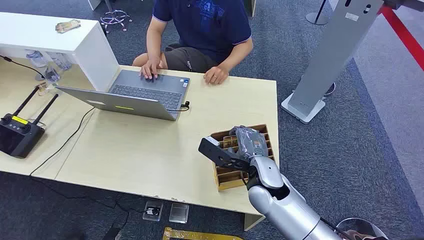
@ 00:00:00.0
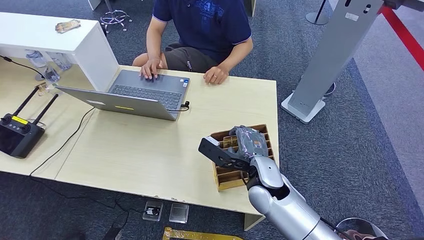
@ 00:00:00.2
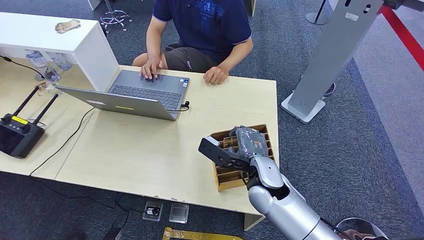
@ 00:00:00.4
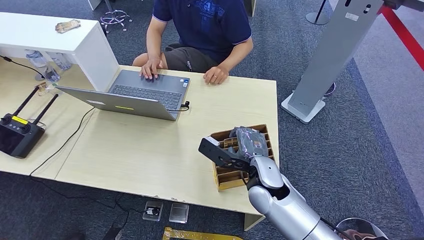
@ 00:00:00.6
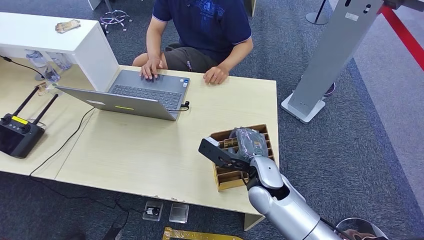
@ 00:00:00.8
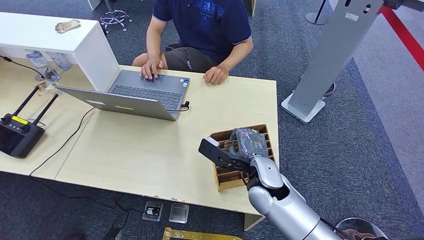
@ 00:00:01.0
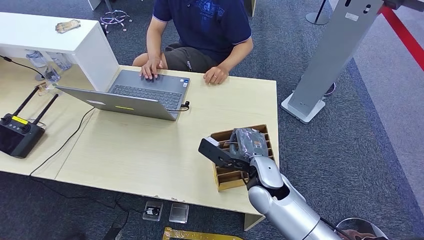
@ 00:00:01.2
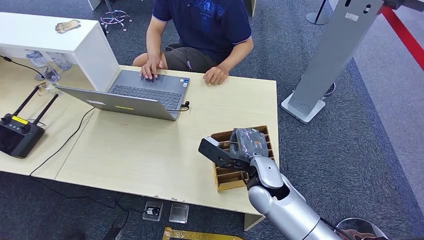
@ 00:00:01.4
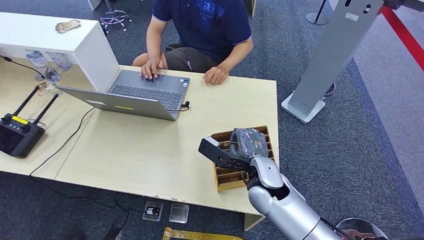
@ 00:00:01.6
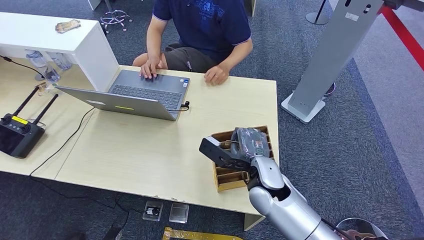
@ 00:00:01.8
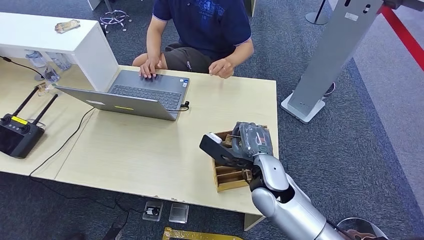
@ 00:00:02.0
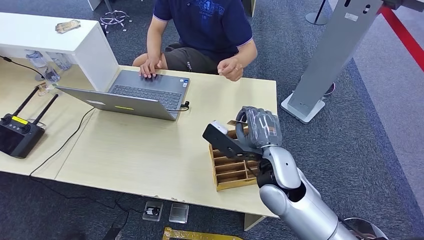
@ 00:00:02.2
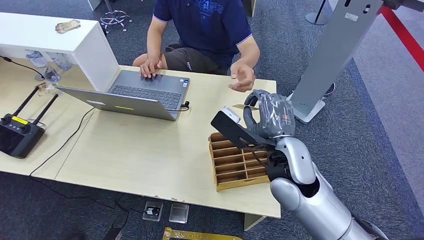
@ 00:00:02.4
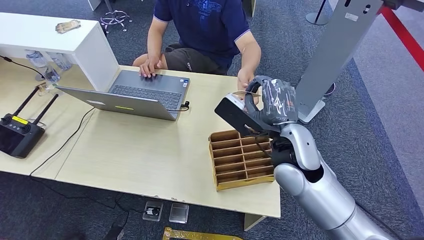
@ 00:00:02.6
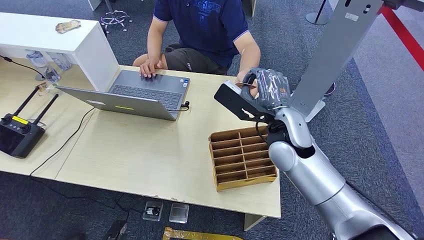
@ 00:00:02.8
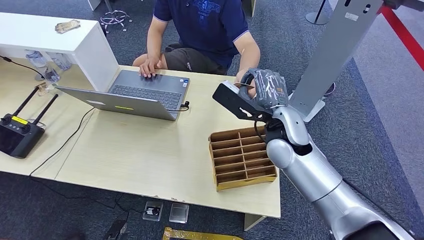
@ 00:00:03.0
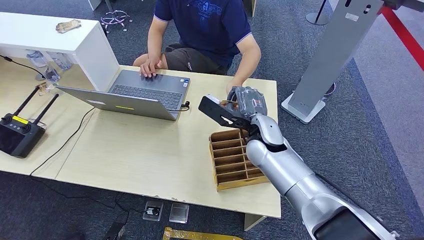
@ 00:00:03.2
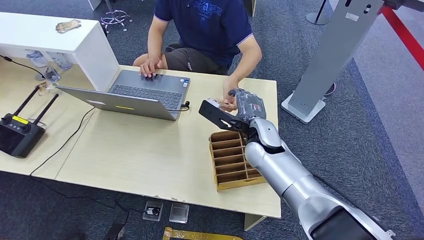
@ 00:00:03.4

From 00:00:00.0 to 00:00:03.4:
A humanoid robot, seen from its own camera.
Step, from 00:00:02.4 to 00:00:03.4: Hand the key card to the target.
From 00:00:01.6 to 00:00:03.4: The right hand moves forward, about 10 cm.
